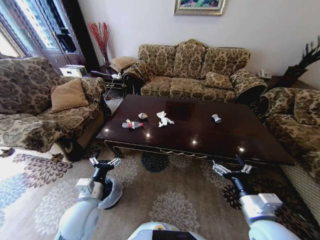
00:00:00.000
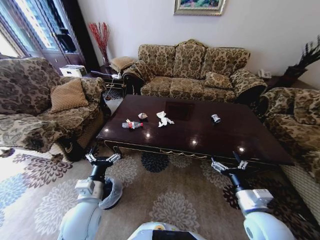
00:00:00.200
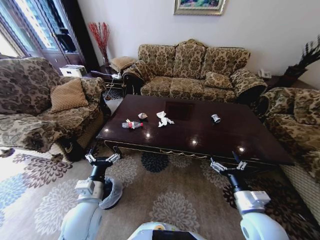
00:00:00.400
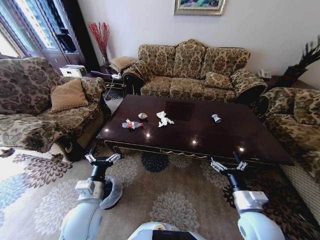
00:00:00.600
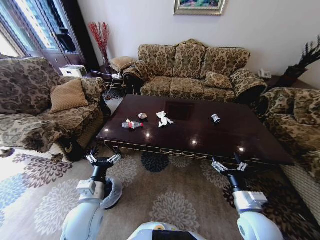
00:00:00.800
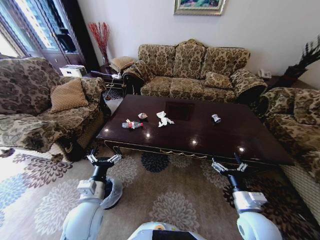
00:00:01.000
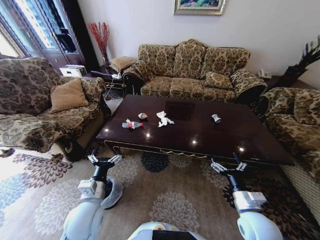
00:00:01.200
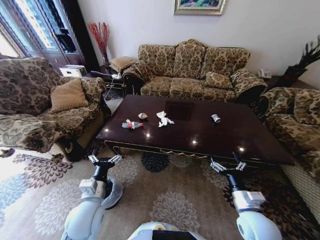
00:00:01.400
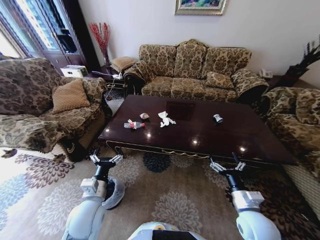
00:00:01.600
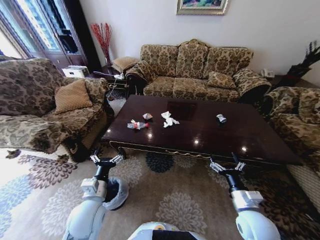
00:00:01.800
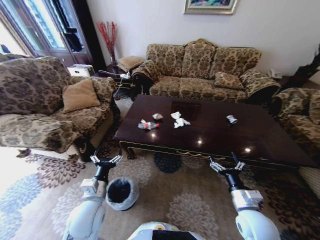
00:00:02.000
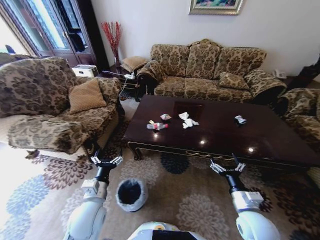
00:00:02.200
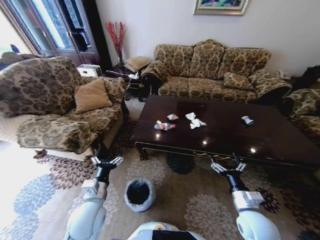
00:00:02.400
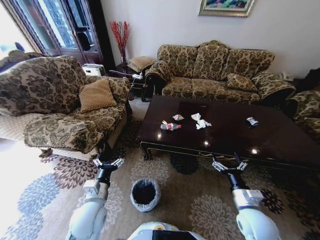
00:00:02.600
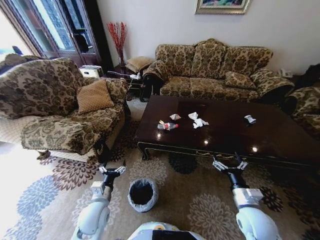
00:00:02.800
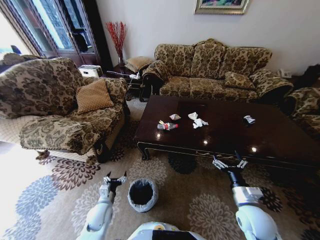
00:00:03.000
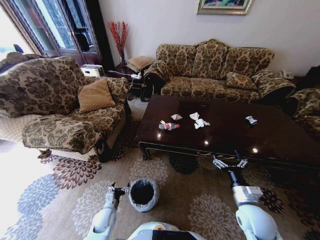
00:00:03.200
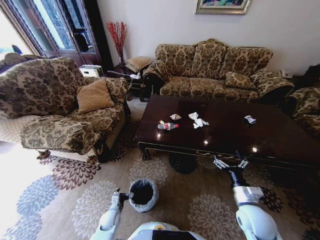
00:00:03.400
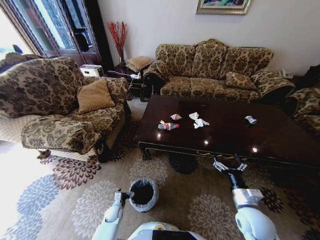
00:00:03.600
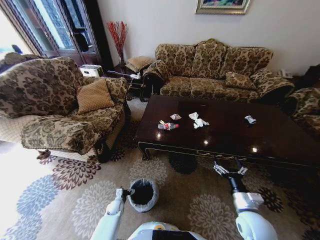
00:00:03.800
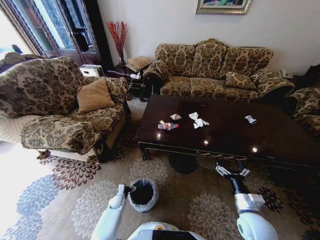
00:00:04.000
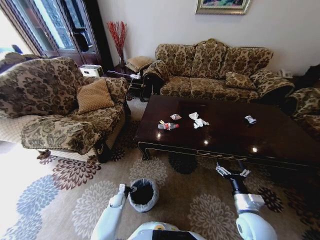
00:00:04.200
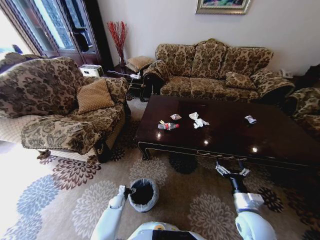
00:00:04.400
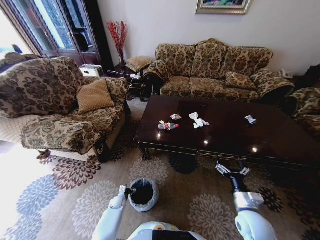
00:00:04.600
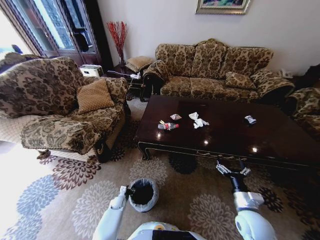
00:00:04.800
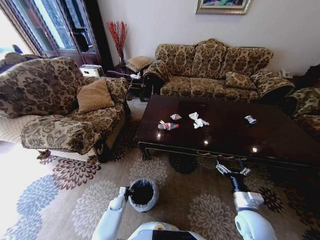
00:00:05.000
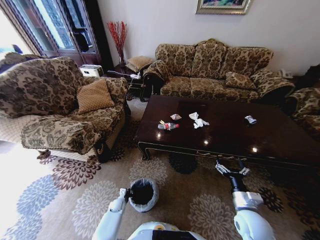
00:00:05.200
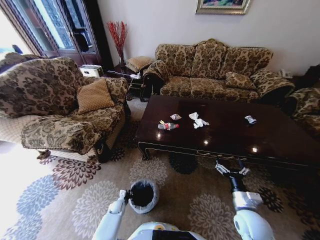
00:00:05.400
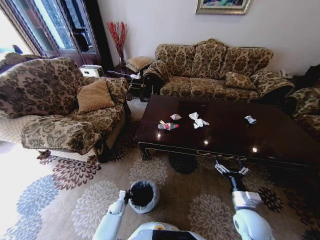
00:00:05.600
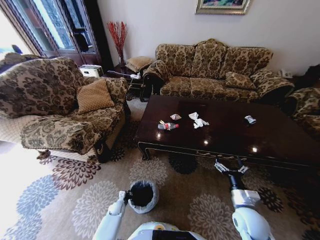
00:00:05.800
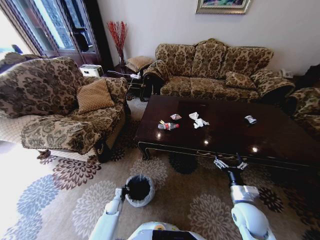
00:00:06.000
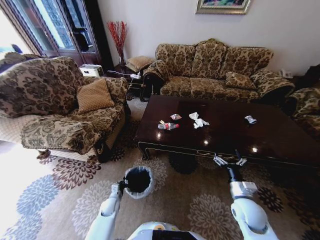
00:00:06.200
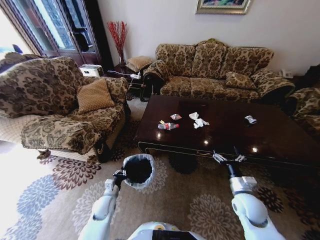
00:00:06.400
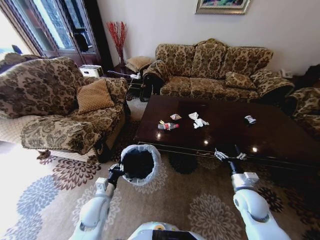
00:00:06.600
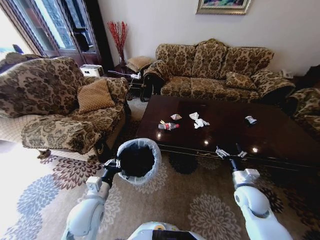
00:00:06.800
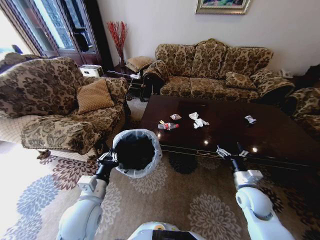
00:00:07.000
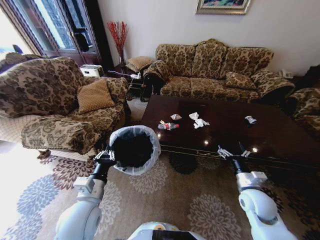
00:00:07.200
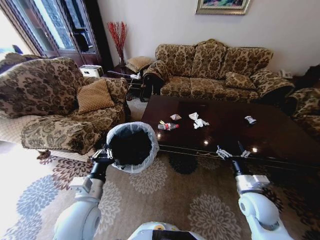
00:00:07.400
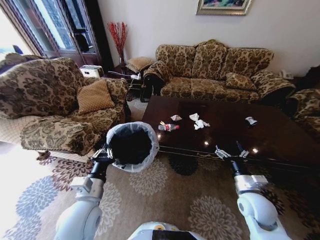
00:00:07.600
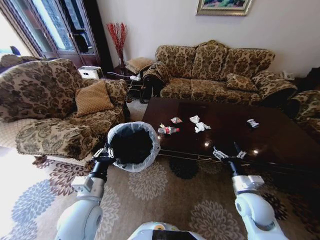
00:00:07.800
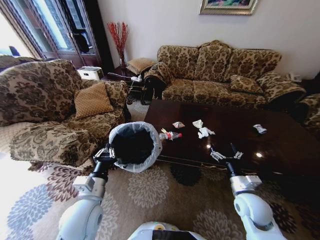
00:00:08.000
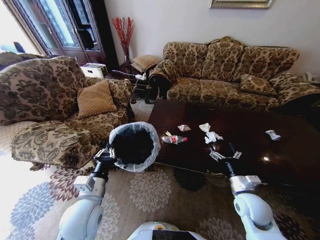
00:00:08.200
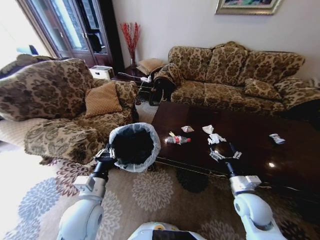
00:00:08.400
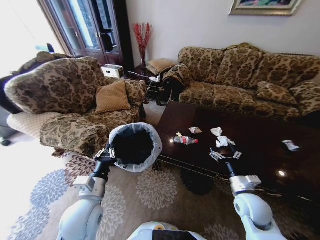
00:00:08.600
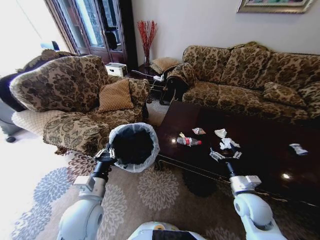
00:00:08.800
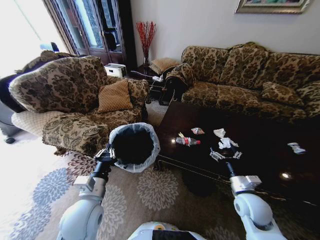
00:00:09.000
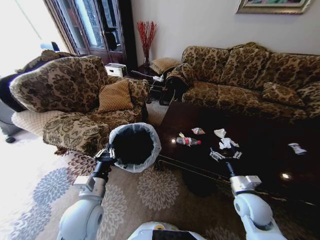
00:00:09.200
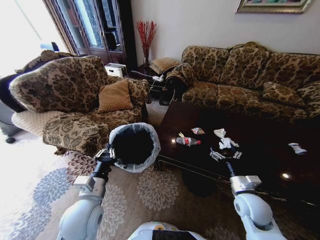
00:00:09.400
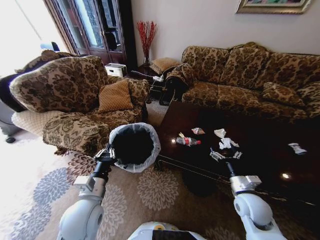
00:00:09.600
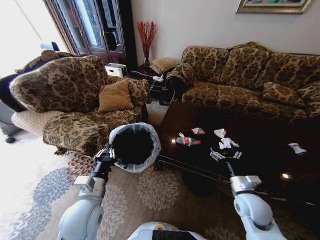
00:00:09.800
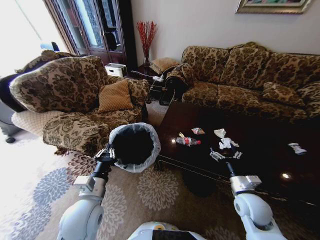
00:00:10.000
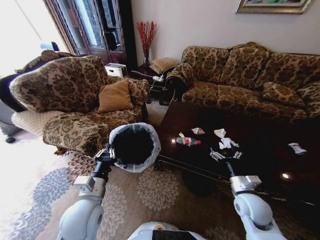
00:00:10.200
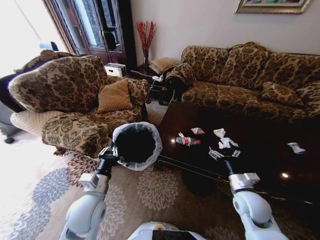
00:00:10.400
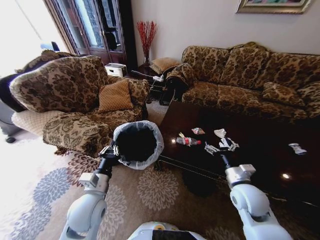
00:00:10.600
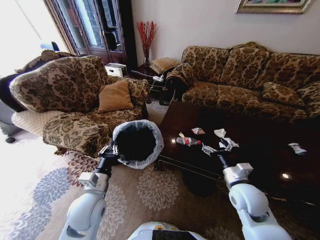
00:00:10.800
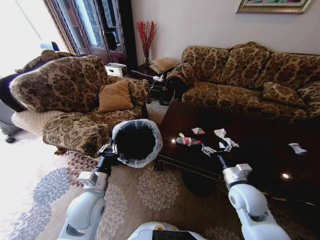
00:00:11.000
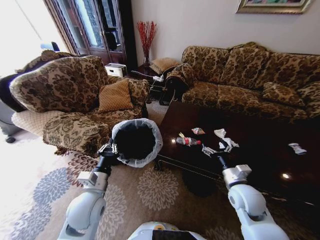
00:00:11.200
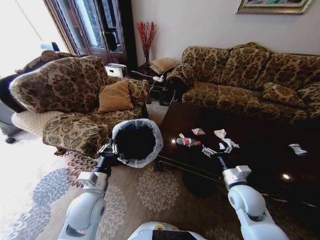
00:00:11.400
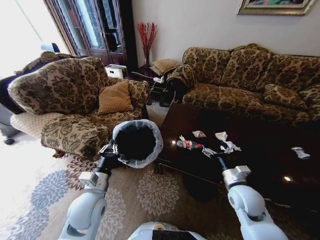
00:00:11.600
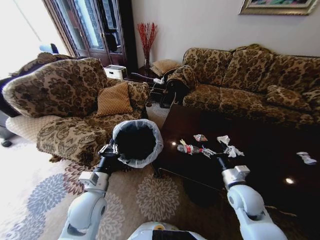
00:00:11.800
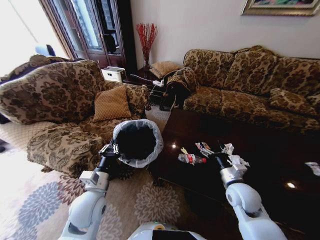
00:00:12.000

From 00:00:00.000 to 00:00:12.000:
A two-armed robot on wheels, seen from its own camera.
Task of the whole recording: Move to the front of the table and place the trash on the table into the trash bin.
From 00:00:01.600 to 00:00:03.000: The left gripper travels downward by some 15 cm.
From 00:00:03.000 to 00:00:04.400: The left gripper heads downward and forward, covering approximately 25 cm.
From 00:00:04.400 to 00:00:06.000: The left gripper closes its fingers.
From 00:00:06.000 to 00:00:07.600: The left gripper heads upward, covering approximately 40 cm, while the right gripper travels upward by approximately 5 cm.
From 00:00:09.000 to 00:00:10.400: The grippers make only small movements.

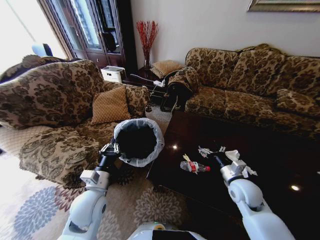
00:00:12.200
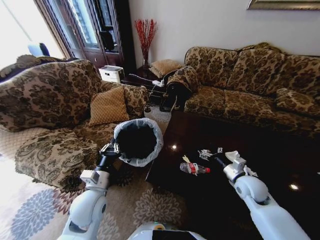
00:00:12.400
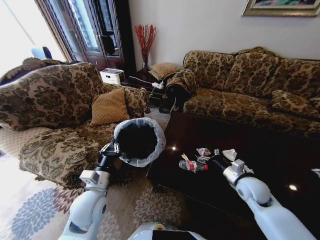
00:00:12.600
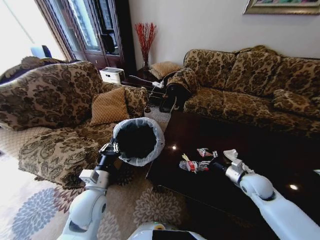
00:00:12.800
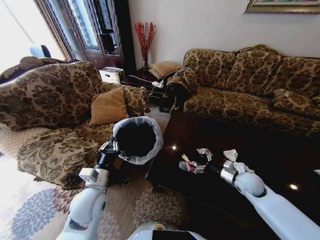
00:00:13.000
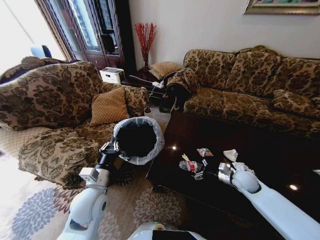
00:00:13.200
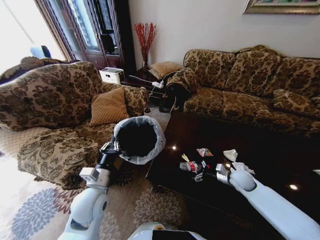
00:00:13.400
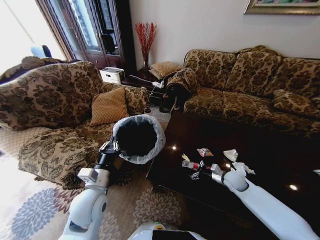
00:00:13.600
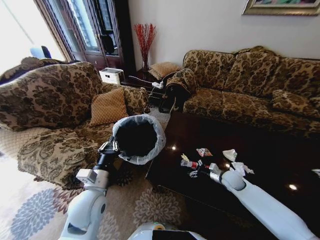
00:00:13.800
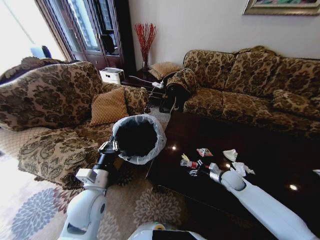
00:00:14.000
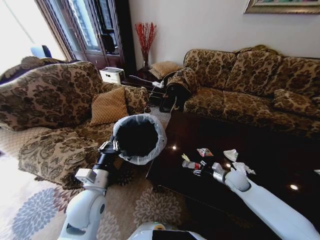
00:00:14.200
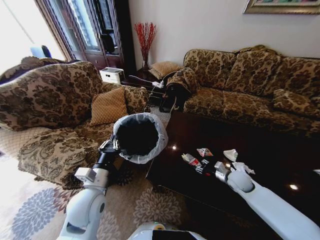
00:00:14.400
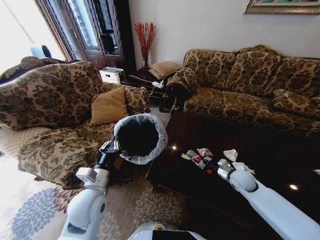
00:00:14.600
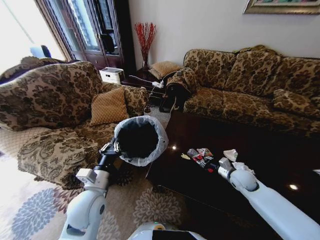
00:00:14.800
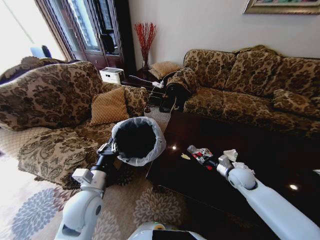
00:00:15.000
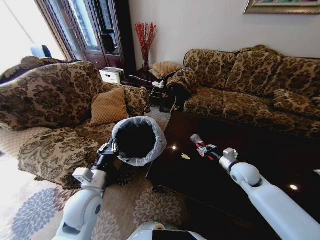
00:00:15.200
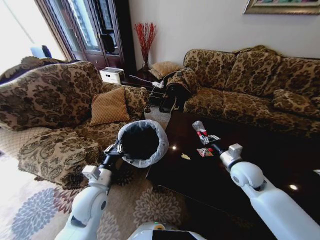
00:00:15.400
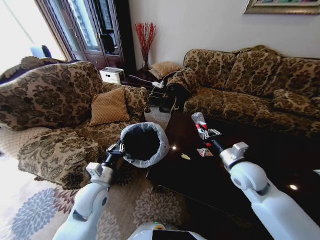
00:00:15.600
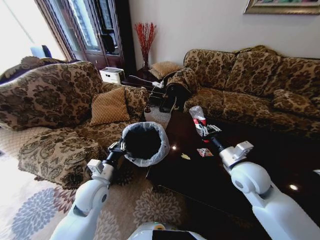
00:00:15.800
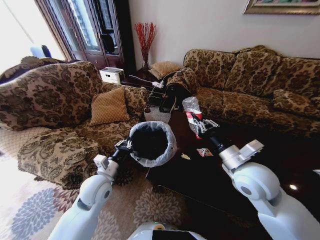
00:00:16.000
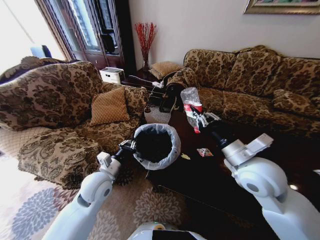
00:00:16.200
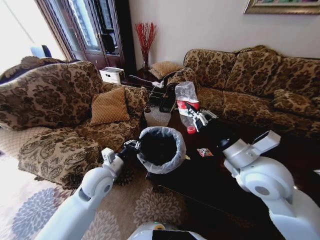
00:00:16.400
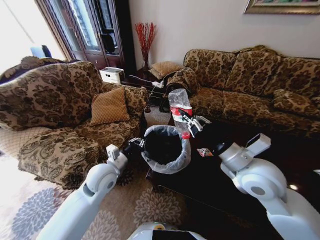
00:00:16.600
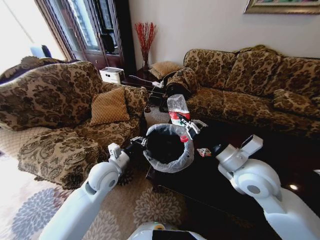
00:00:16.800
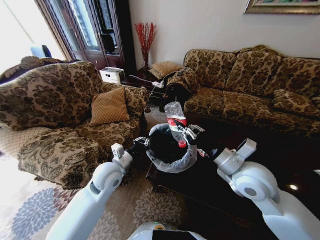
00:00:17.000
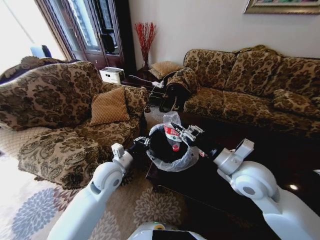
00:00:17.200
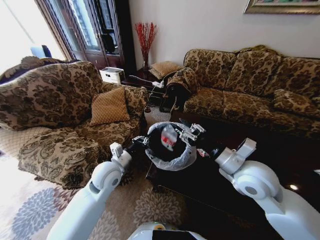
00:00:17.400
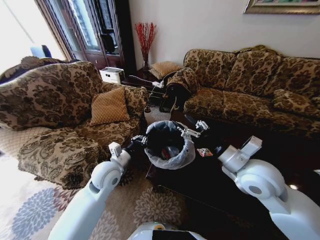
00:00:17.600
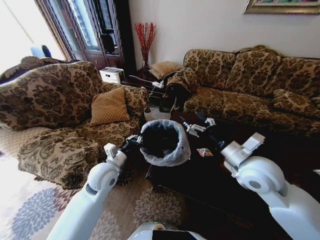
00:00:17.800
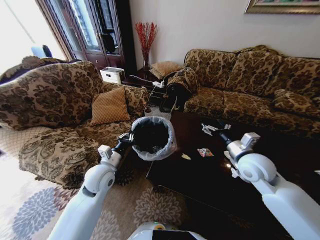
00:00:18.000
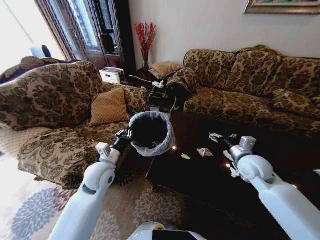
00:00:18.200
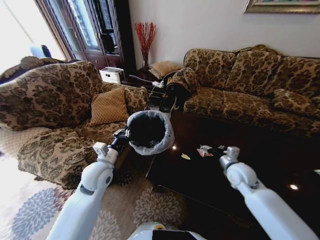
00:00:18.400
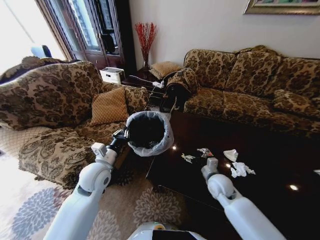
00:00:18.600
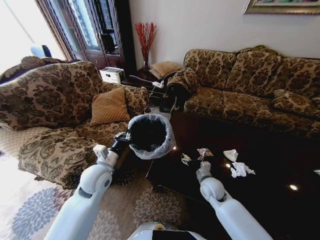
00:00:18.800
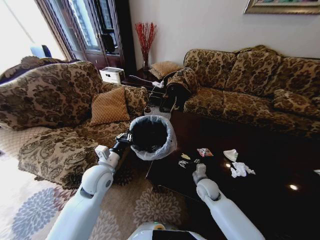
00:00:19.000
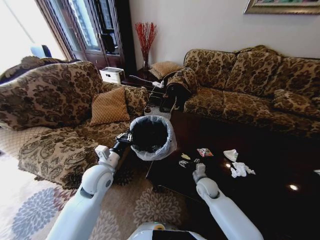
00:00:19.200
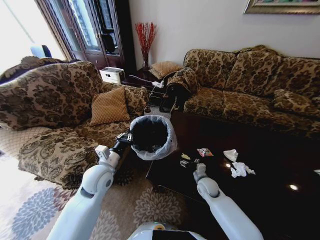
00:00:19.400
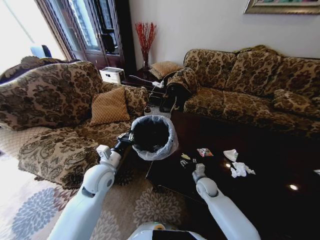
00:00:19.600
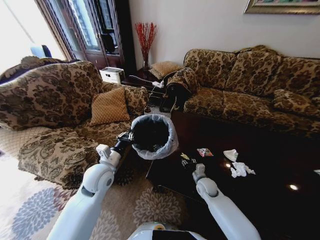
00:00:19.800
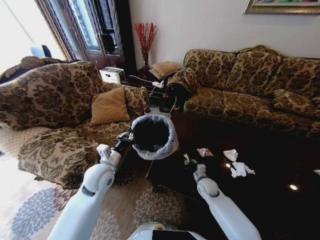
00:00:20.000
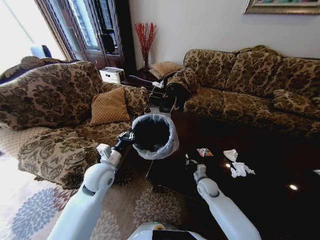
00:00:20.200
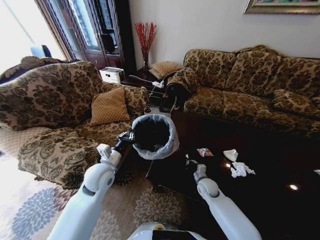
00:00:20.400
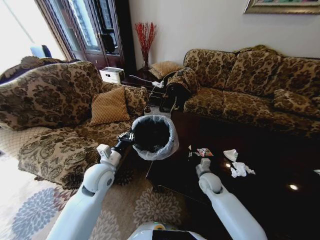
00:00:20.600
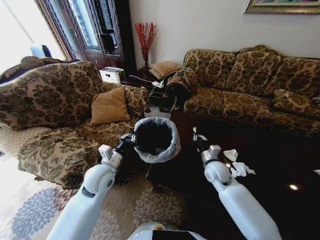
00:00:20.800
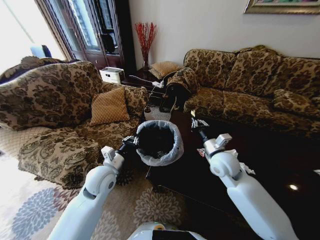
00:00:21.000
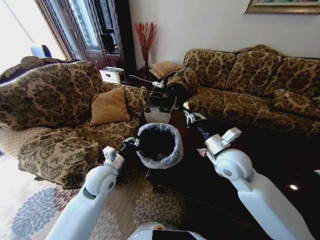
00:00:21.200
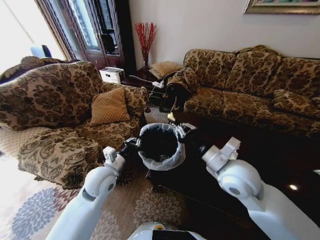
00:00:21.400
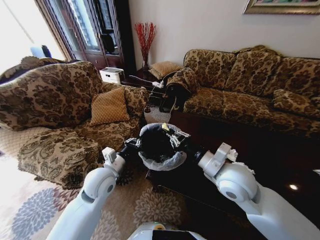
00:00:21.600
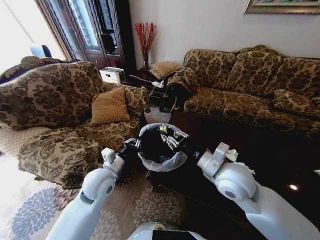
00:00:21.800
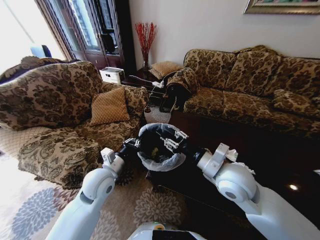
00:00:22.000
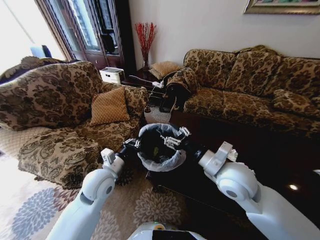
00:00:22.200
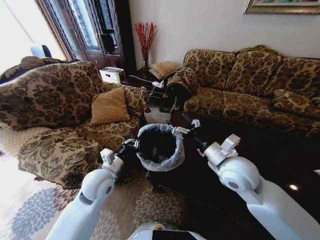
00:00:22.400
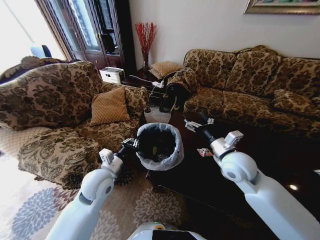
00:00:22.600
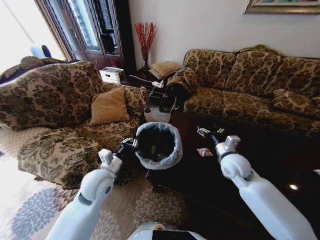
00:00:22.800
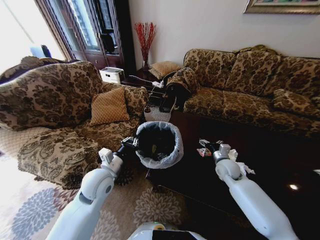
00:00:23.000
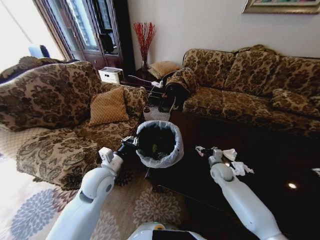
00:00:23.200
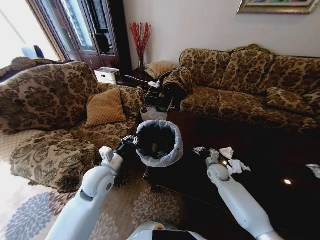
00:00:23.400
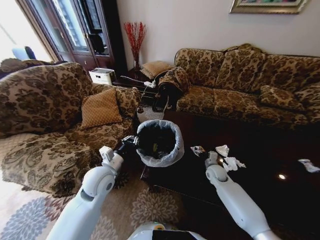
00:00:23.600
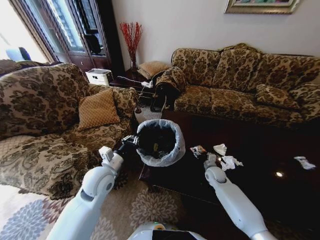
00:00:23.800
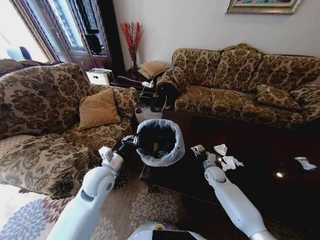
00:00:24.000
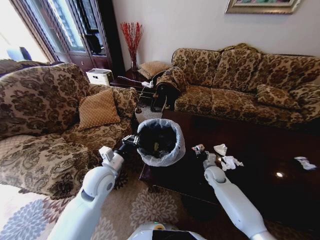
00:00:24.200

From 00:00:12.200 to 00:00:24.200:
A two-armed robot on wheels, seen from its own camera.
Task of the whole recording: Move to the front of the table and place the trash on the table into the trash bin.
From 00:00:12.200 to 00:00:13.800: The right gripper goes approximately 15 cm downward, forward and to the right.
From 00:00:13.800 to 00:00:15.200: The right gripper heads upward, covering about 10 cm, and closes up.
From 00:00:15.200 to 00:00:16.600: The right gripper is displaced upward, to the left and backward by approximately 20 cm; the left gripper is displaced forward by about 10 cm.
From 00:00:16.600 to 00:00:18.200: The right gripper moves downward, to the right and forward, approximately 15 cm, and opens up.
From 00:00:18.200 to 00:00:19.800: The right gripper moves downward and to the left, roughly 25 cm, and closes up.
From 00:00:19.800 to 00:00:21.200: The right gripper goes some 30 cm upward, and closes its fingers.
From 00:00:21.200 to 00:00:22.600: The right gripper opens.
From 00:00:22.600 to 00:00:24.200: The right gripper travels downward by some 25 cm, and closes up.
